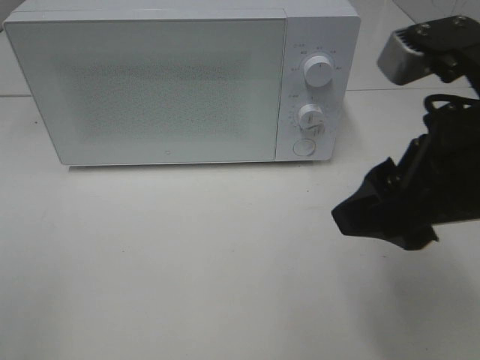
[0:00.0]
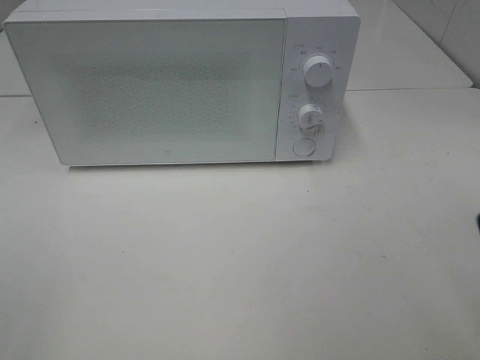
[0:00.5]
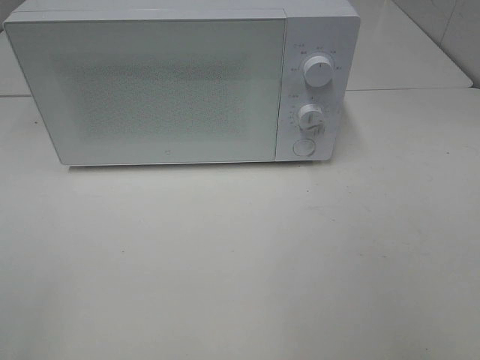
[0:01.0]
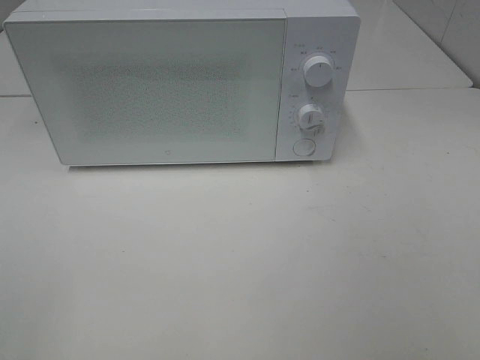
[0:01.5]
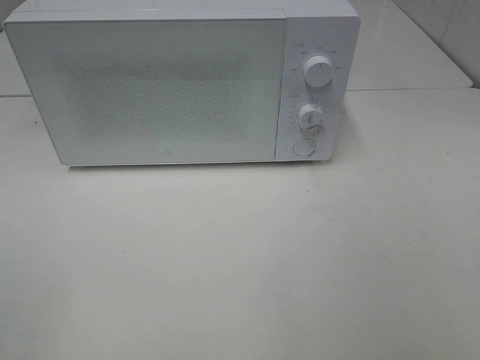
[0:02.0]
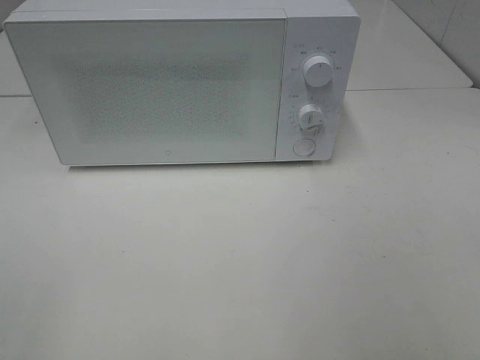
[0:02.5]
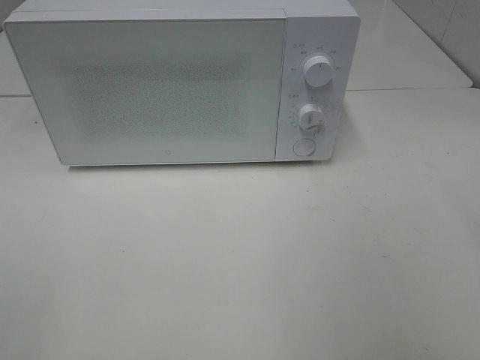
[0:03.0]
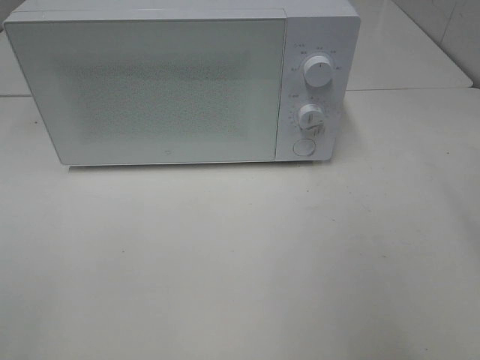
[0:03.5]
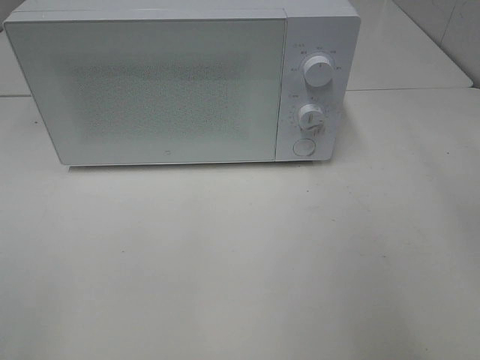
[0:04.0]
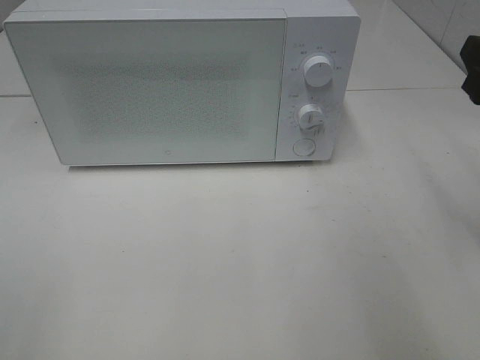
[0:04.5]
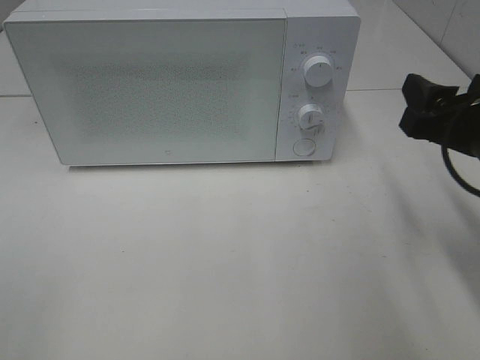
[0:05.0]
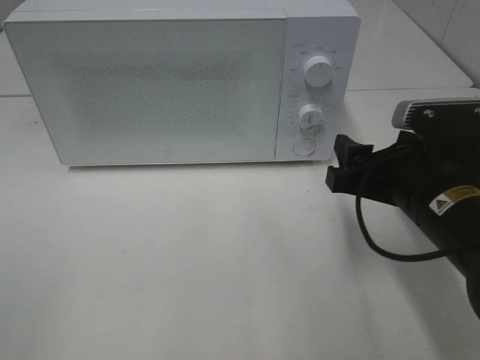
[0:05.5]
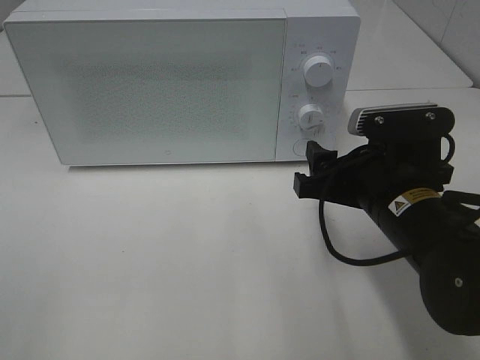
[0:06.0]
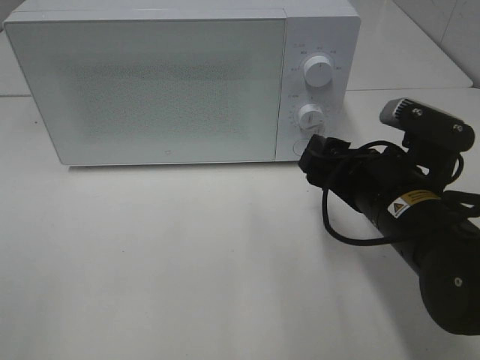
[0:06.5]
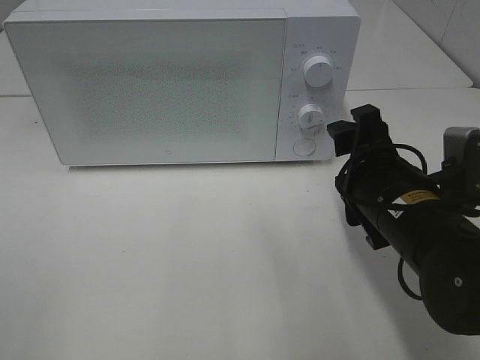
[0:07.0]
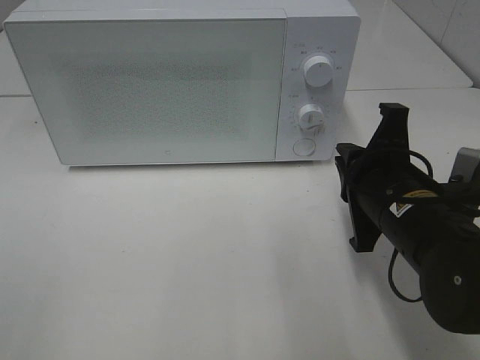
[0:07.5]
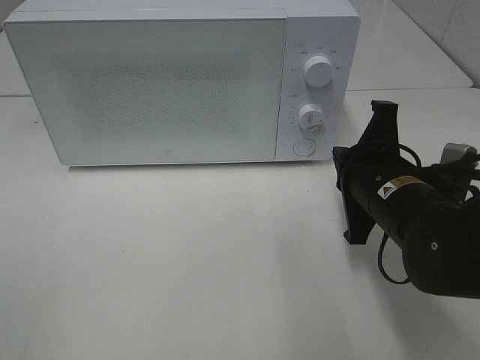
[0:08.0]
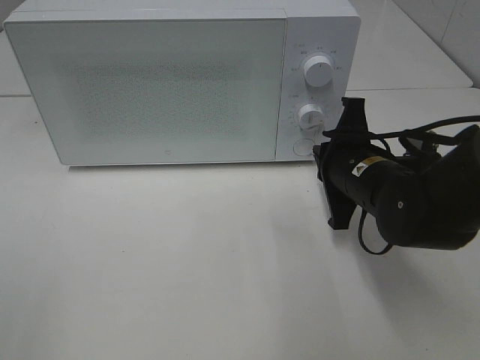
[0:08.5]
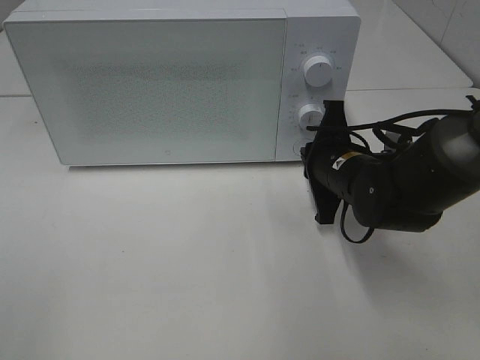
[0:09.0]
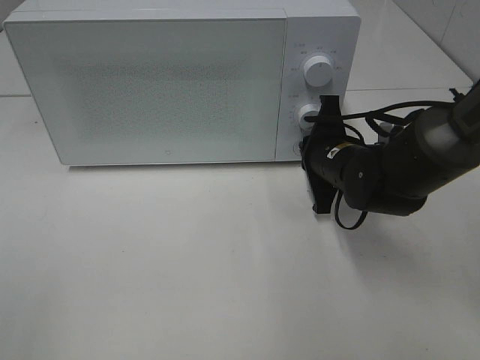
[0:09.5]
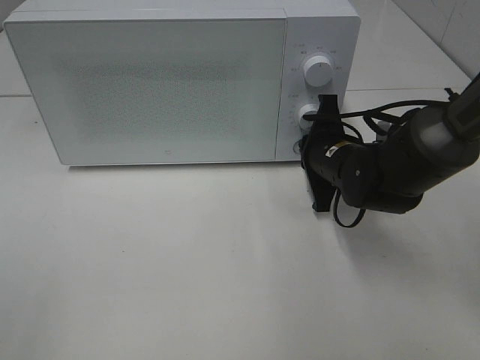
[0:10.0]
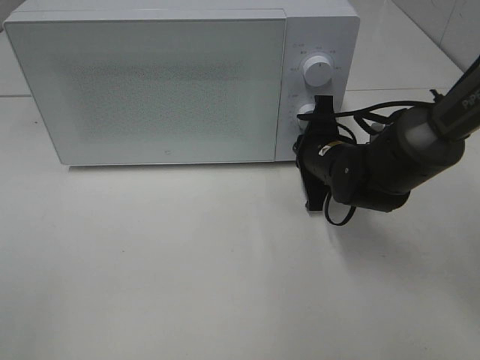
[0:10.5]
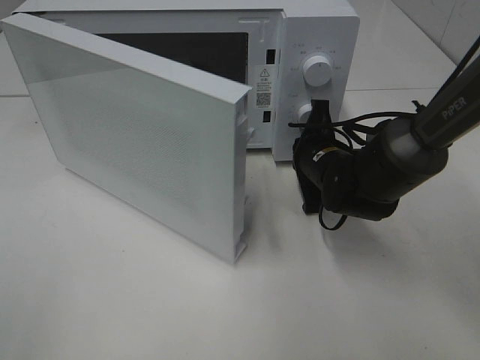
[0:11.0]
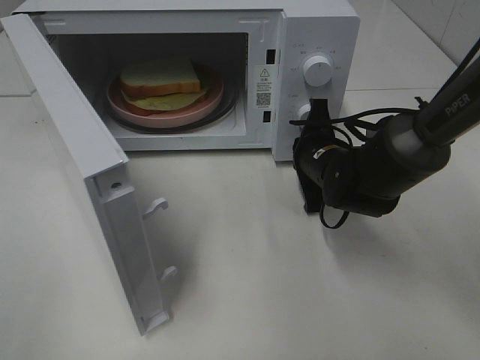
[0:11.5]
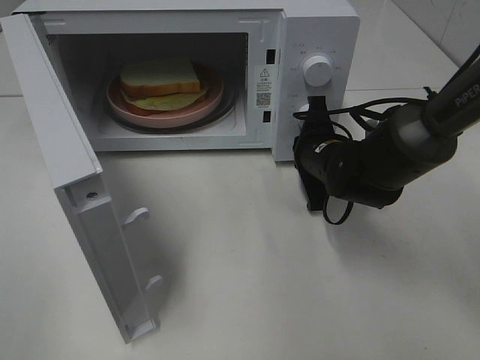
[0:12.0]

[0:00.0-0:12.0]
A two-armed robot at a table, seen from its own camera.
Task of the whole recording: Heat Sandwich.
0:00.0 to 0:02.0: The right gripper shifts approximately 20 cm backward and to the right.
0:04.0 to 0:06.0: The right gripper is displaced downward and to the left by approximately 20 cm.
0:06.0 to 0:08.0: The right gripper closes its fingers.
0:08.0 to 0:10.0: The right gripper goes some 10 cm forward.

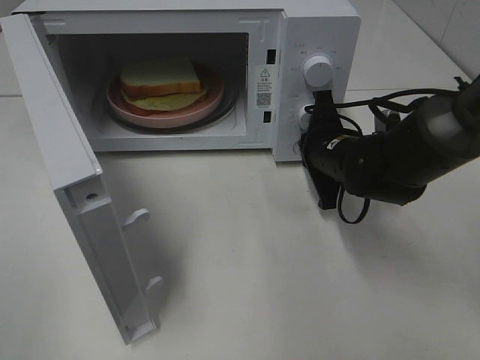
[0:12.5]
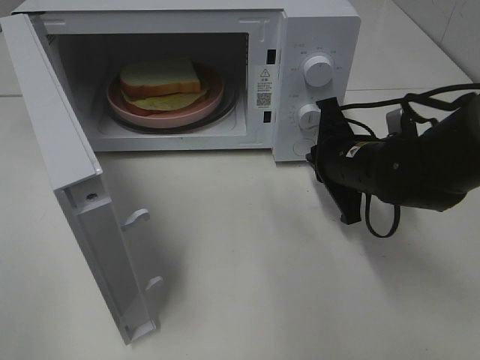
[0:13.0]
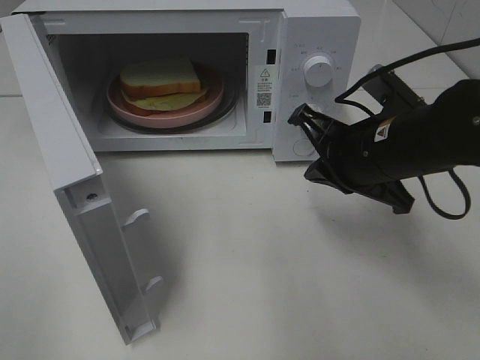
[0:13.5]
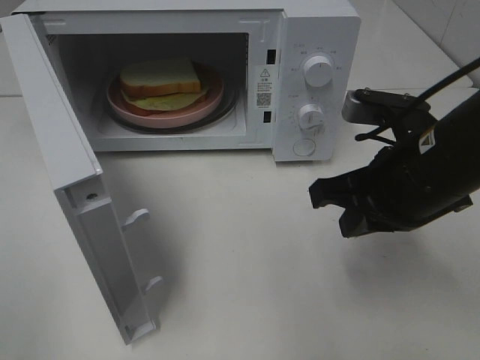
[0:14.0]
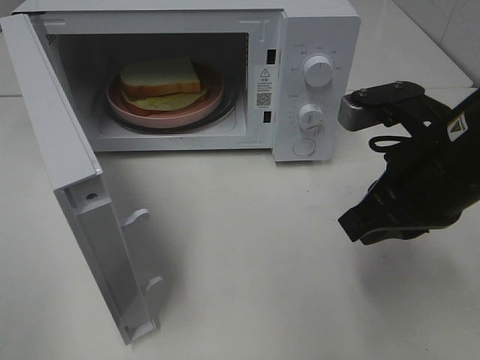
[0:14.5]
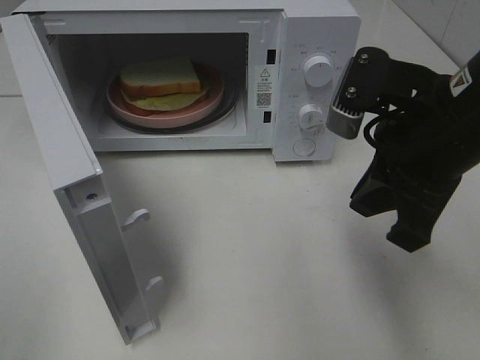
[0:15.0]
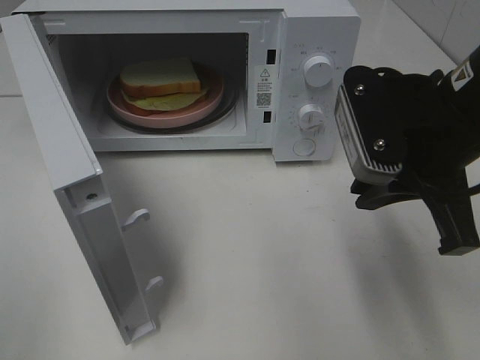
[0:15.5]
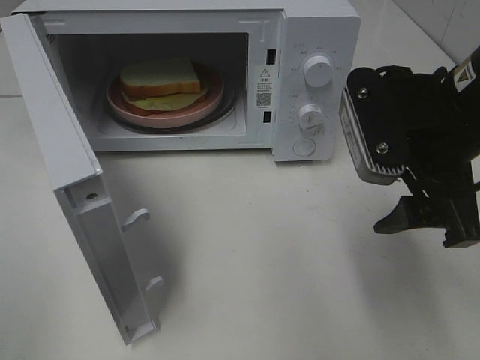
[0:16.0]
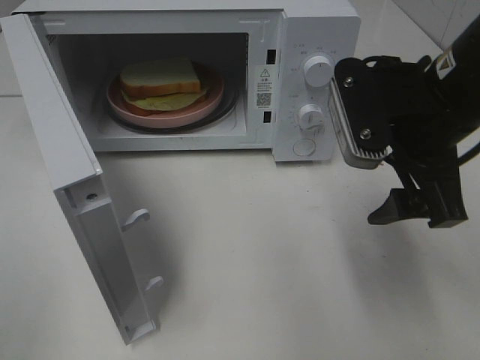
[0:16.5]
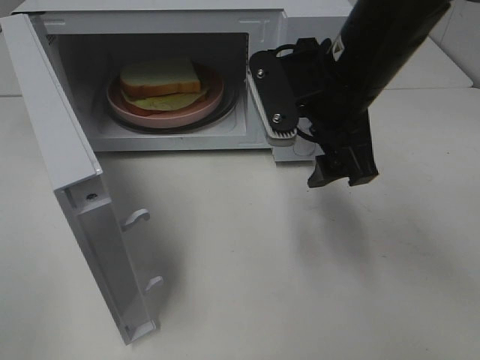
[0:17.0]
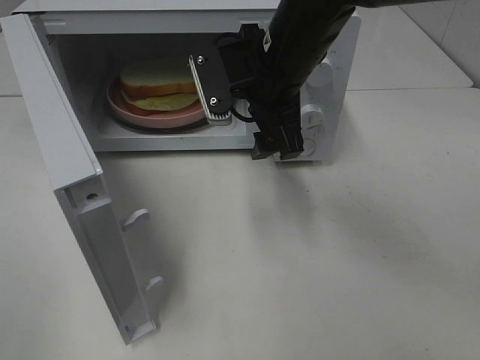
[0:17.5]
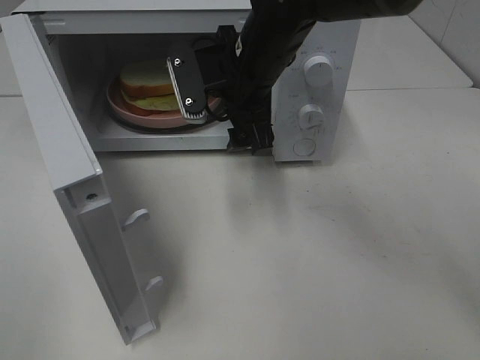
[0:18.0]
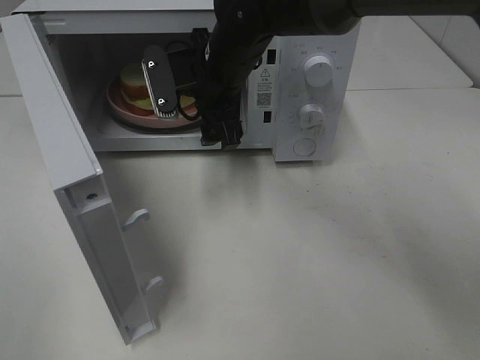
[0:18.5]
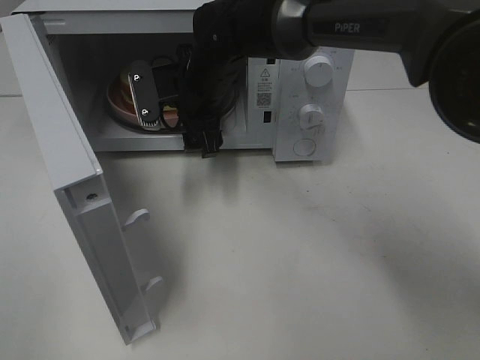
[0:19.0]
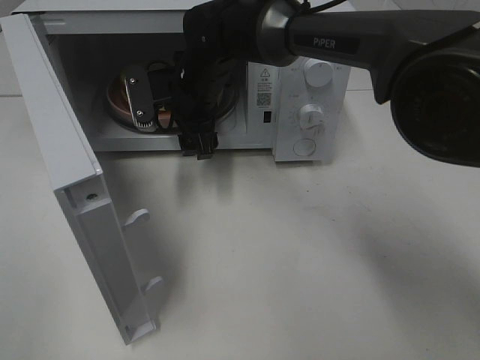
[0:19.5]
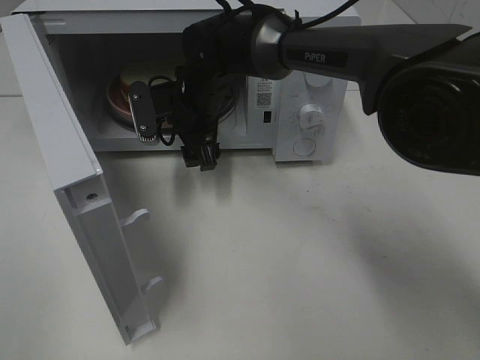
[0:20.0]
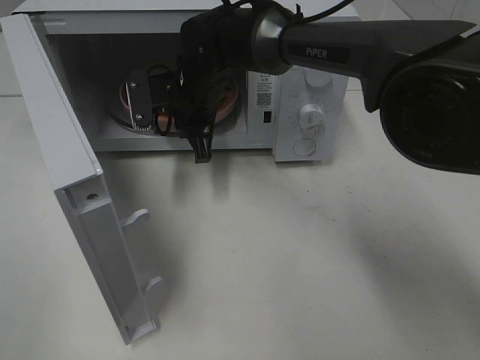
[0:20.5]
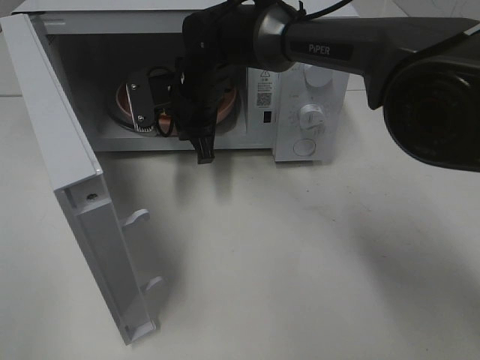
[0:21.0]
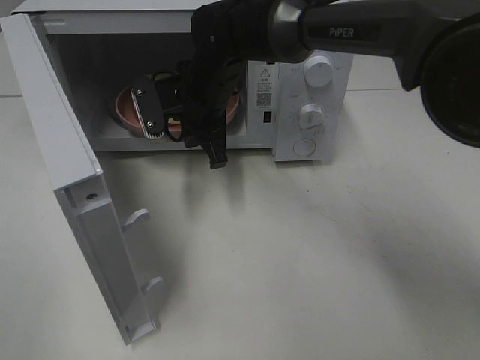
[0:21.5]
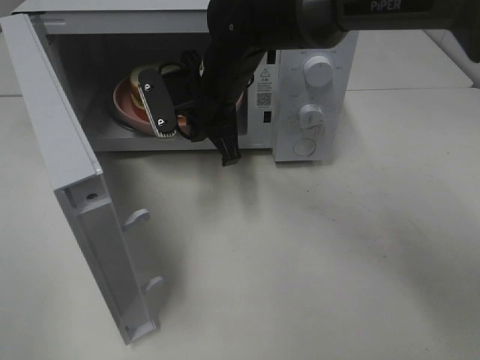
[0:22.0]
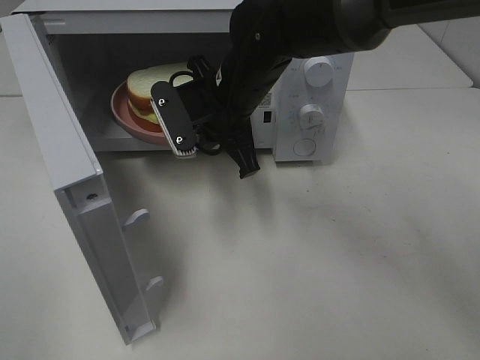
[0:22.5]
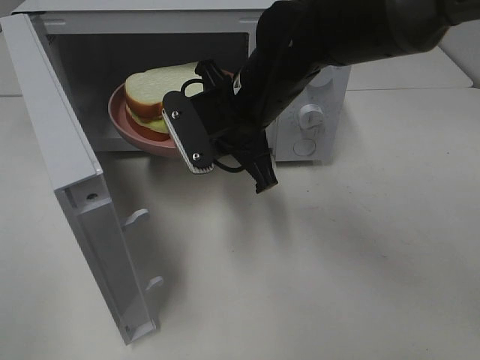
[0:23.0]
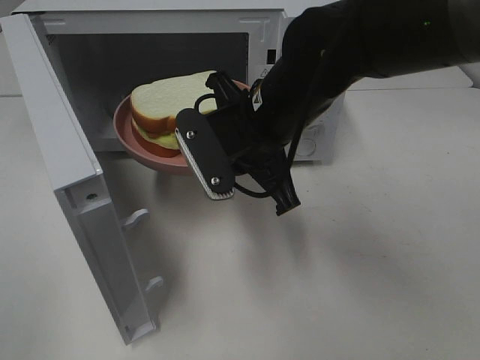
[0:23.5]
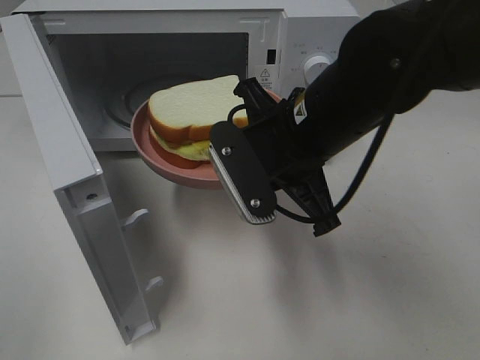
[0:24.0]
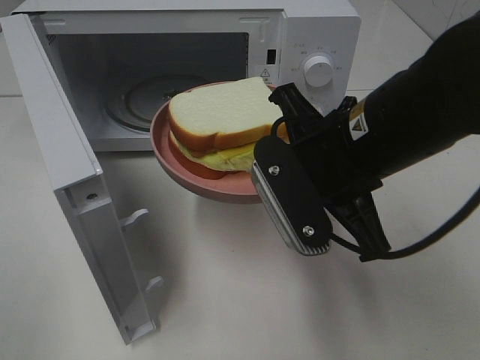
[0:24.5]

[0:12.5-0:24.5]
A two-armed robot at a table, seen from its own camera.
Task of the whole recording: Heat Sandwich.
Step, 0:13.5 to 0:18.5: Right hand: grab the plate with the sandwich.
0:12.5 to 0:14.5: The right gripper heads backward and upward, covering some 20 cm.
0:14.5 to 0:16.5: The right gripper opens.
0:16.5 to 0:18.5: The right gripper is displaced to the left and forward by approximately 25 cm.
0:18.5 to 0:20.5: The right gripper shifts by roughly 5 cm, and closes.
0:20.5 to 0:22.5: The right gripper heads backward, covering about 5 cm.
0:22.5 to 0:24.5: The right gripper is displaced backward and to the right by approximately 15 cm.

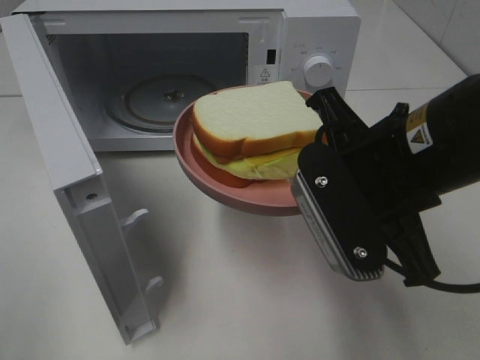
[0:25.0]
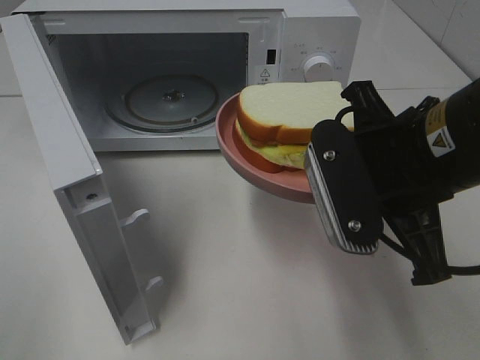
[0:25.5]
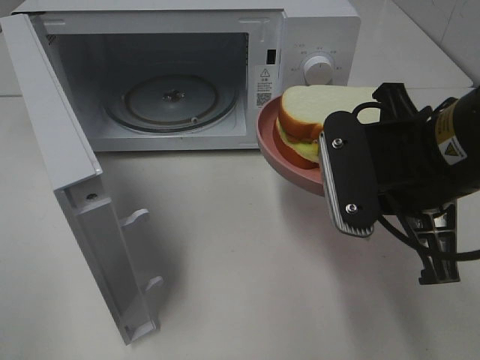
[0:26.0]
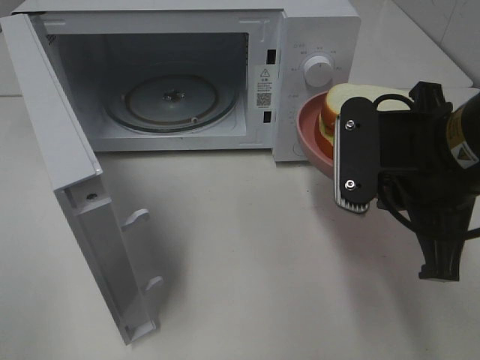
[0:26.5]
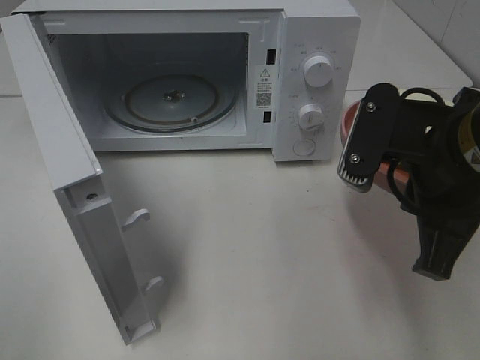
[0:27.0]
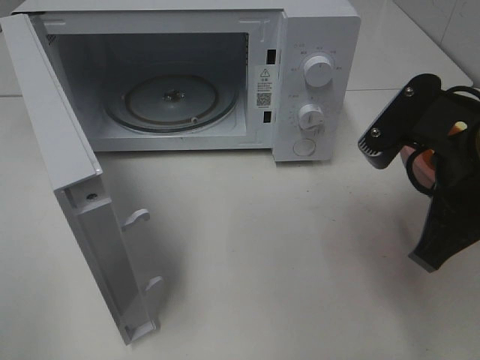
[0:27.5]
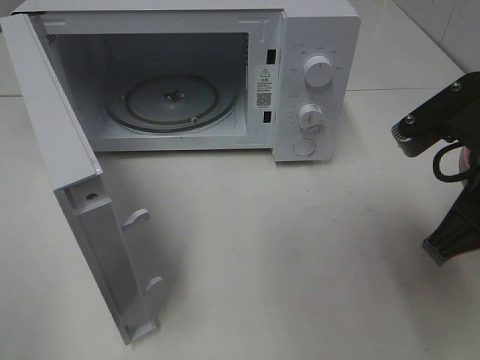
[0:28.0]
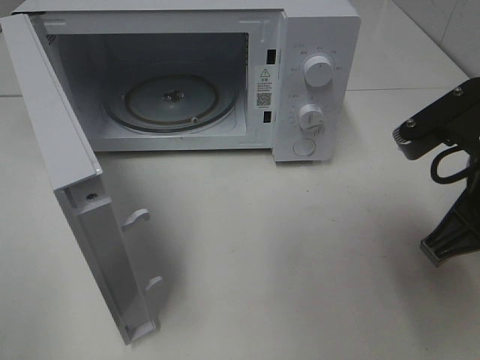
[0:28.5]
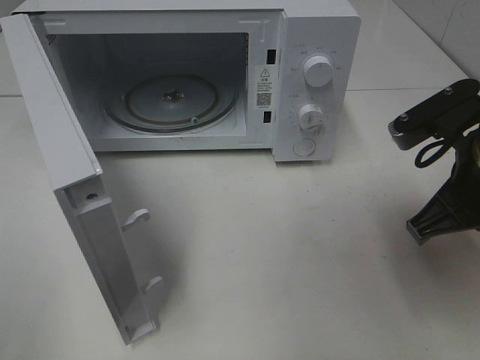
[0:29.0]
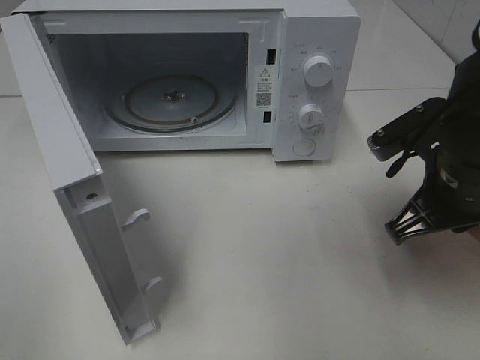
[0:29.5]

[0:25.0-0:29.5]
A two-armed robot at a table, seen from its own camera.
Task of the whole recording: Heat Sandwich.
0:27.0 to 0:29.5: The right gripper moves downward, some 5 cm.
